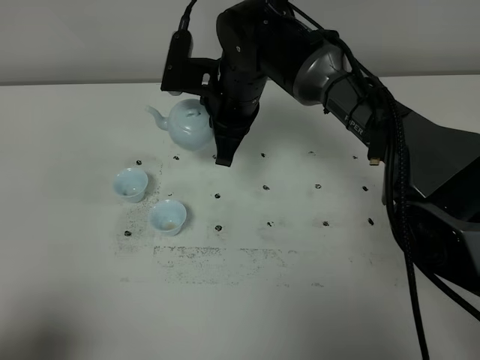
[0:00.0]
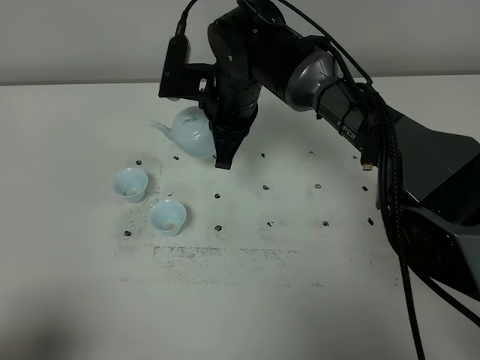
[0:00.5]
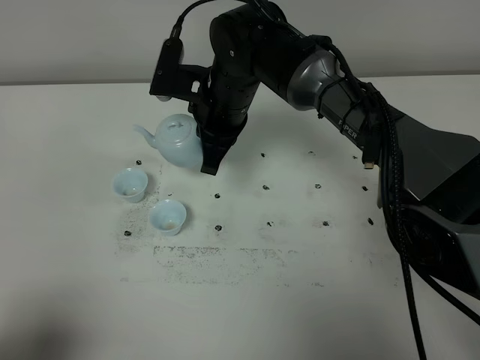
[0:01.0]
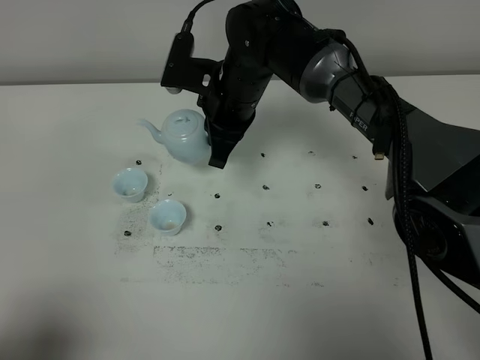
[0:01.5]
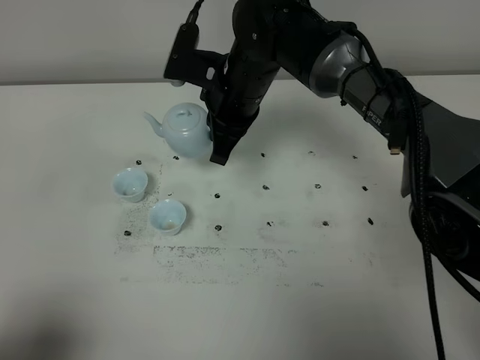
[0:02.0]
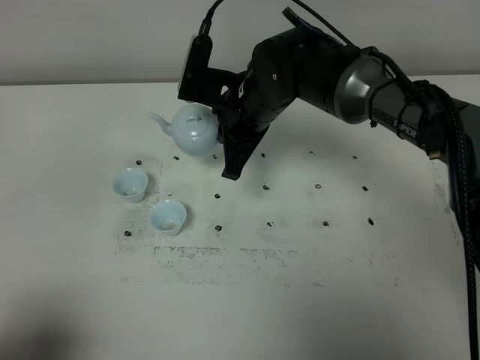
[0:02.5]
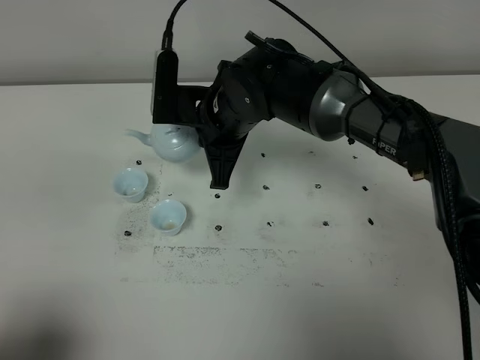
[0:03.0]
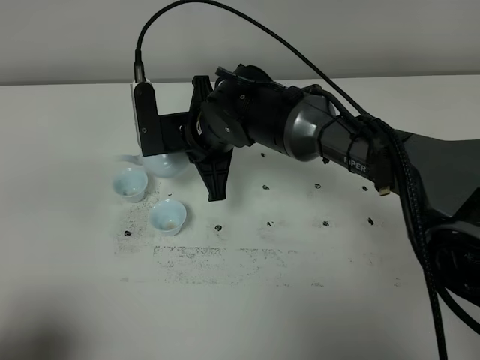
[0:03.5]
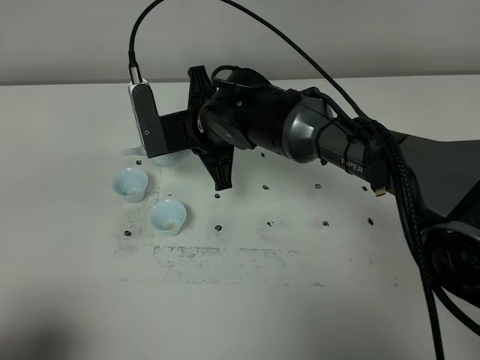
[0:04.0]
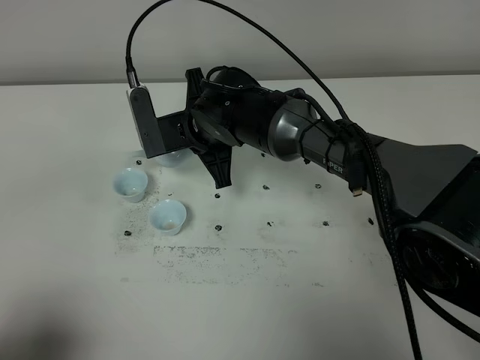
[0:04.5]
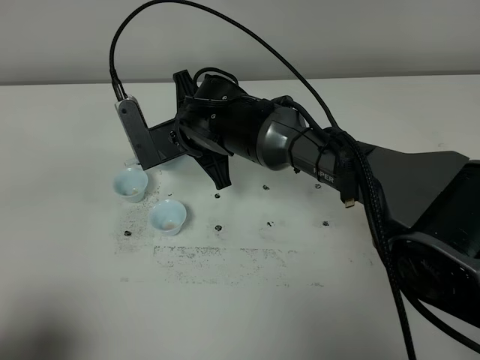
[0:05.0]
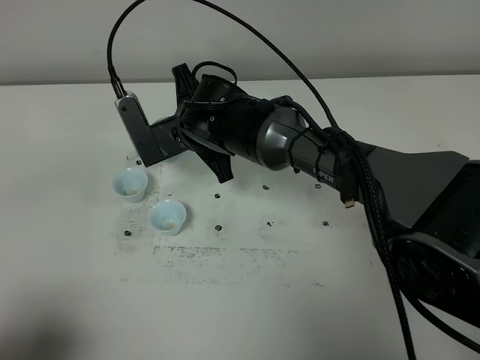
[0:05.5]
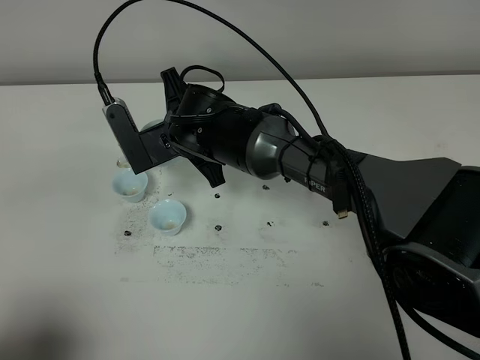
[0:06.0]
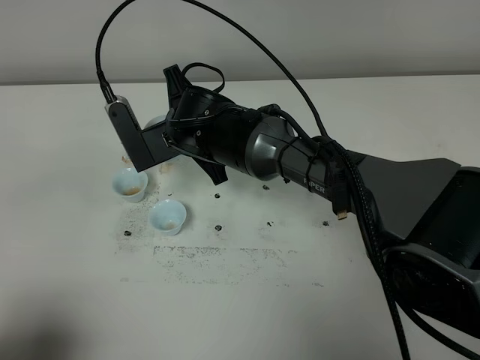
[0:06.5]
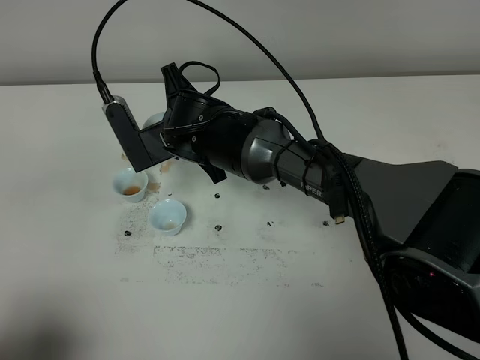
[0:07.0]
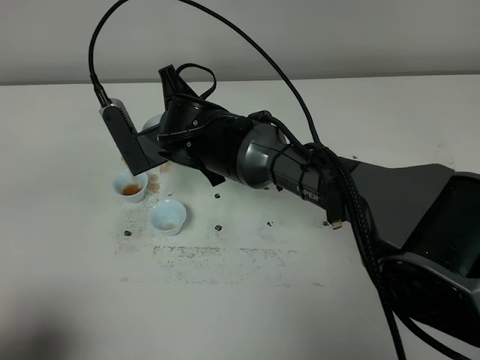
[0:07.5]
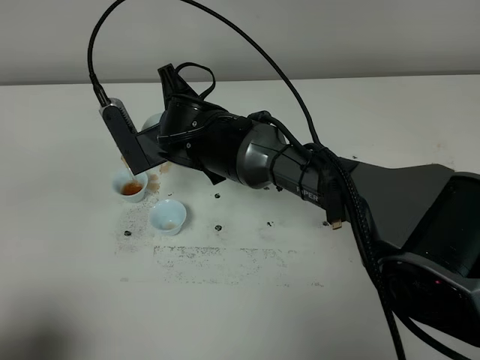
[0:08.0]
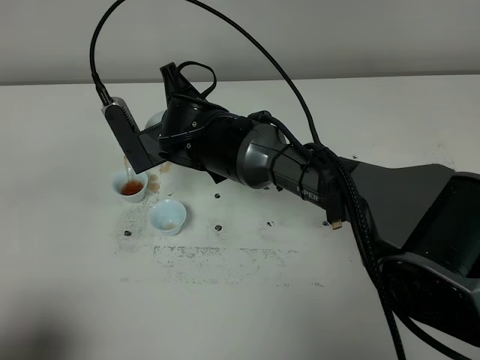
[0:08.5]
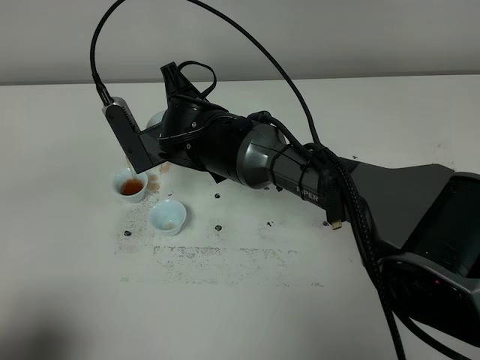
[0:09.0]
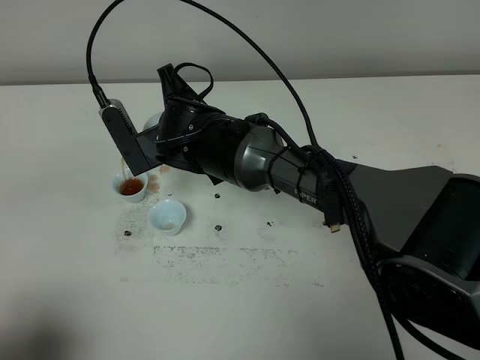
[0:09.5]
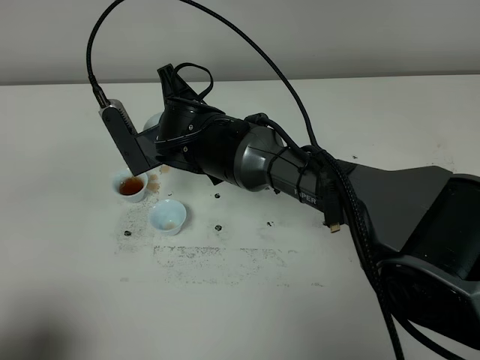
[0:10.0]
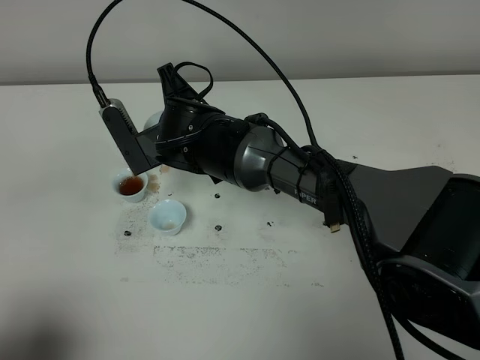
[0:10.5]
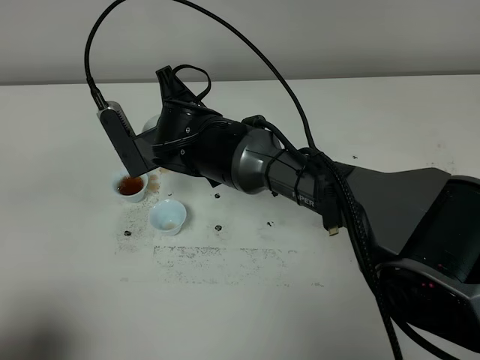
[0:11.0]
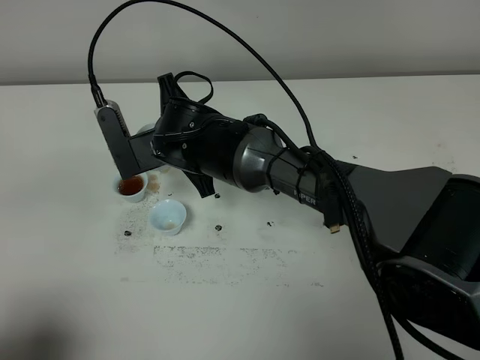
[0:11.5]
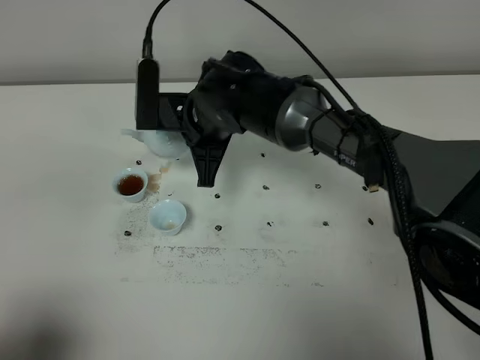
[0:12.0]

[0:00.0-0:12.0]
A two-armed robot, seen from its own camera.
Task of the whole recording: grasp the blue porcelain teapot and pour the tea into the two blue porcelain teacups one by one, put the blue porcelain teapot back in its original place.
Step, 0:00.0 to 0:11.5: Pour tea into the teacup with the right gripper.
0:00.0 to 0:02.0: The grippers move only a little.
0:02.0 to 0:04.0: The right gripper moves roughly 5 cm.
0:06.0 to 0:08.0: The grippers stay close to where they were, moving slightly.
0:08.0 to 0:10.0: Both grippers stay about where they are.

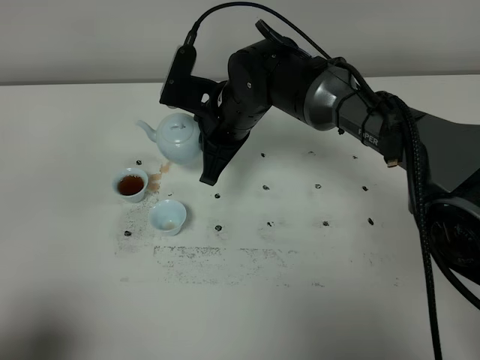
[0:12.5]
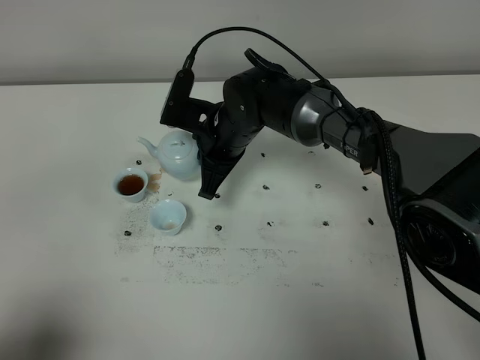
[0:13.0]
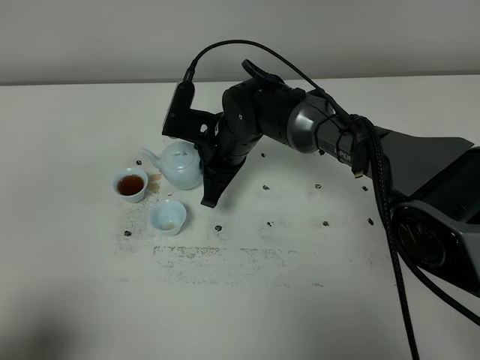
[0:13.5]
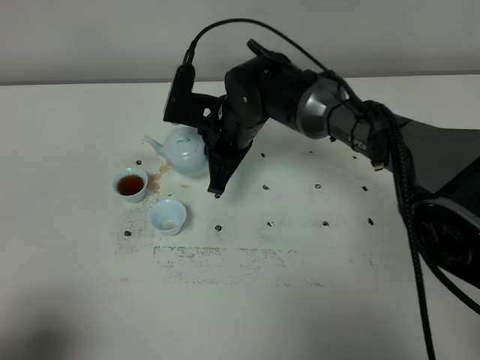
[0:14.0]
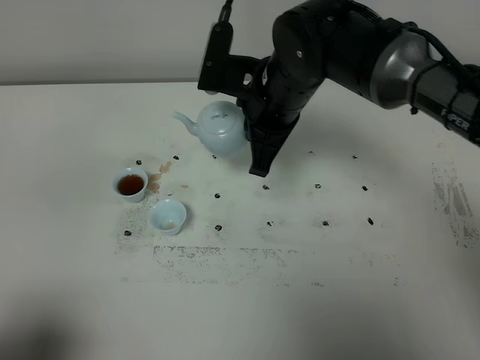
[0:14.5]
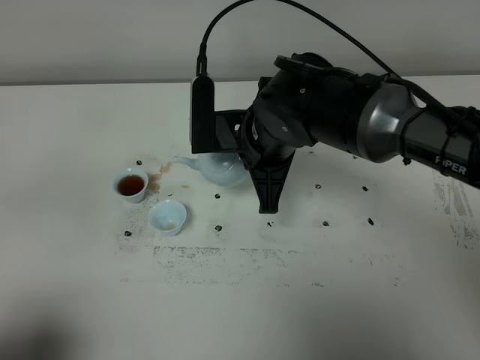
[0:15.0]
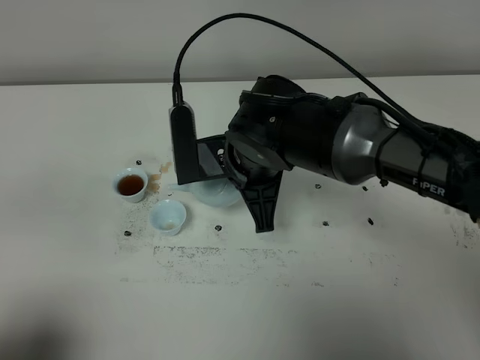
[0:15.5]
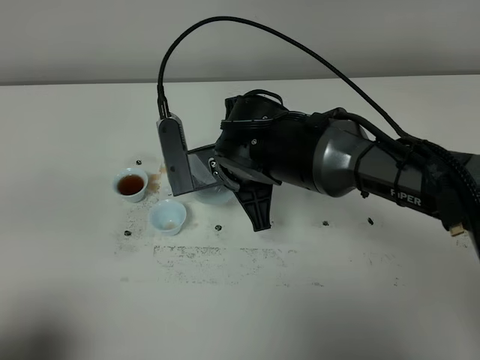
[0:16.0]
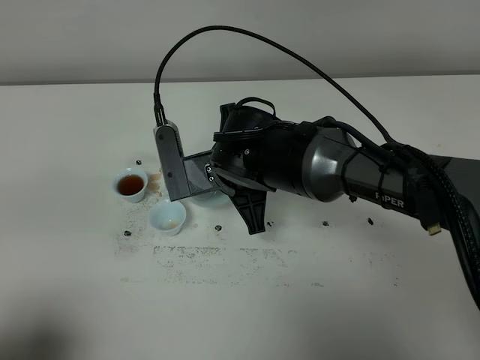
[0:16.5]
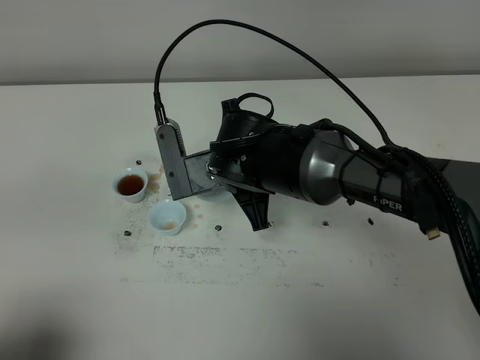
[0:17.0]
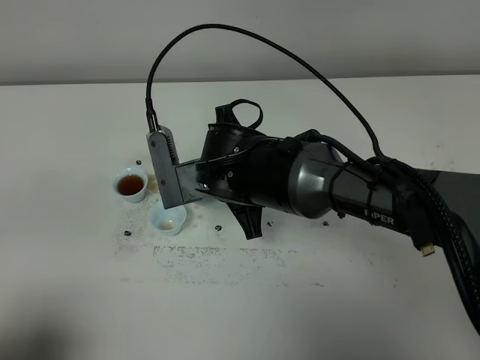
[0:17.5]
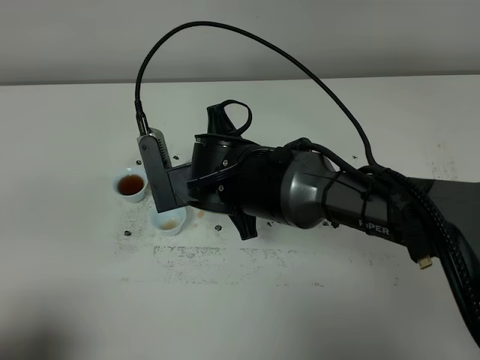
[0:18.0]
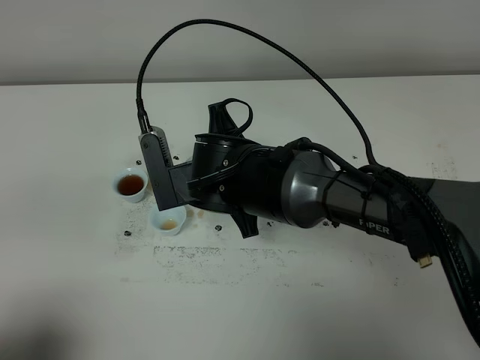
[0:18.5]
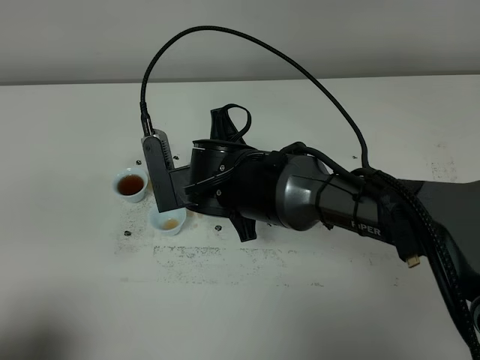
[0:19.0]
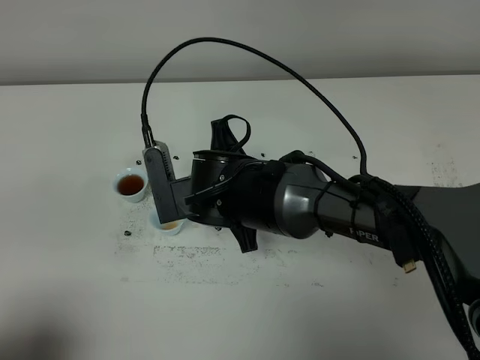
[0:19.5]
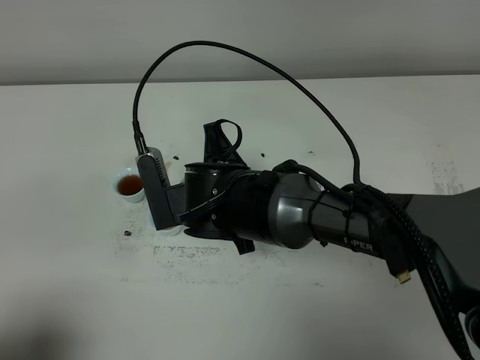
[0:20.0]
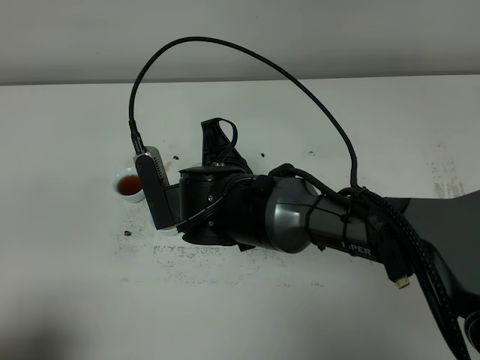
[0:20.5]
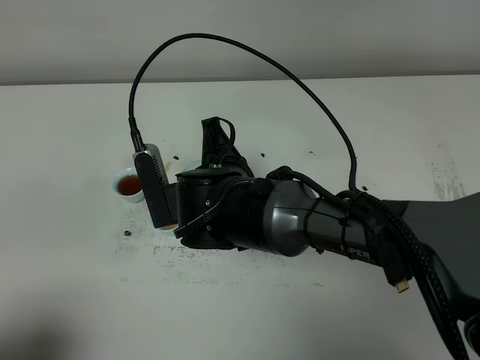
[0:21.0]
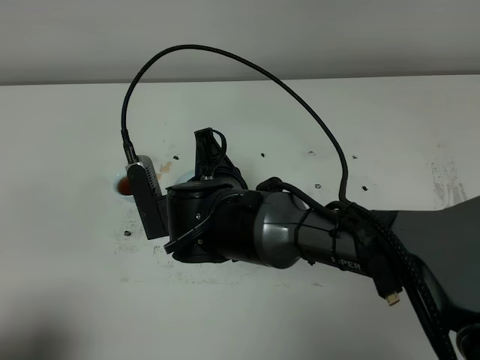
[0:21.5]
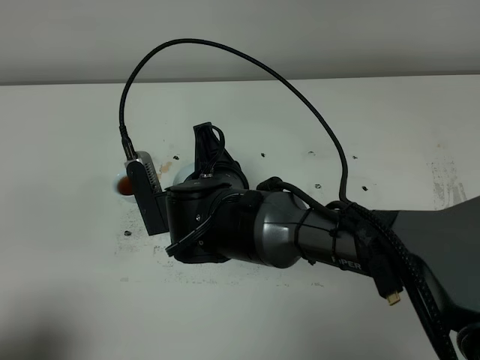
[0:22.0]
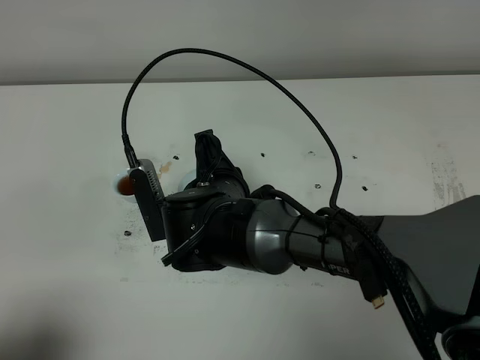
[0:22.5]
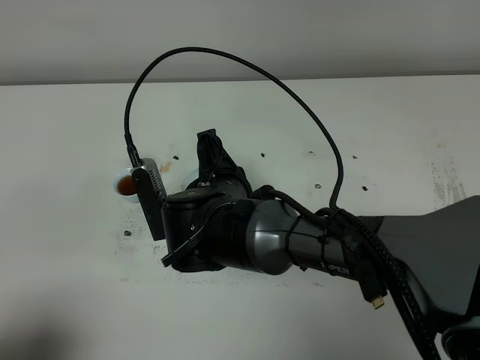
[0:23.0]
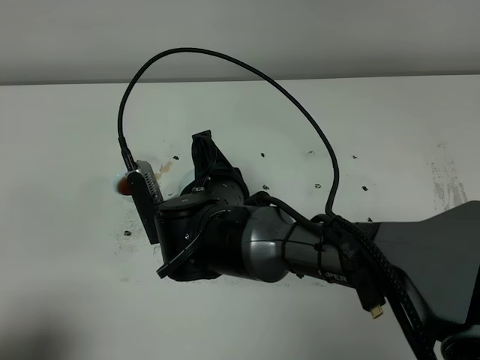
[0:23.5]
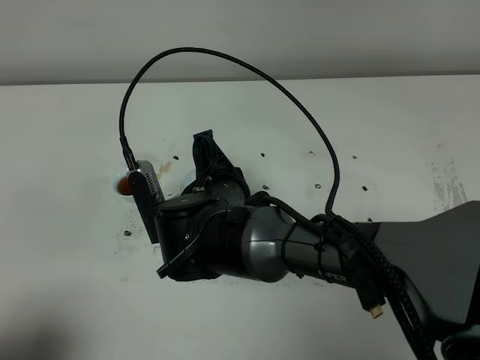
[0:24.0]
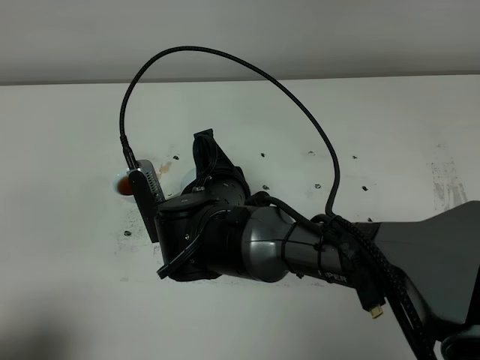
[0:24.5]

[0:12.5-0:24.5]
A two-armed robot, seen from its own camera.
Task of the whole recording: grasp the blue porcelain teapot and pour the tea into the two blue porcelain teacups one by one, put the blue porcelain teapot back in its original place.
0:12.5 to 0:14.5: The right gripper travels upward and to the right by about 10 cm.
0:14.5 to 0:16.5: The right gripper moves downward and to the left, some 10 cm.
0:16.5 to 0:22.5: The grippers stay close to where they were, moving slightly.
0:22.5 to 0:24.5: Both grippers stay put.

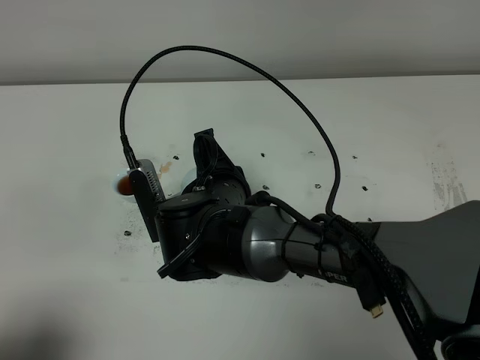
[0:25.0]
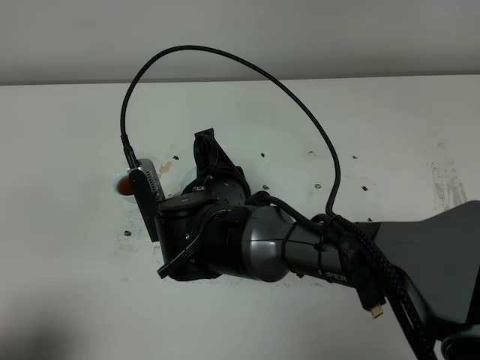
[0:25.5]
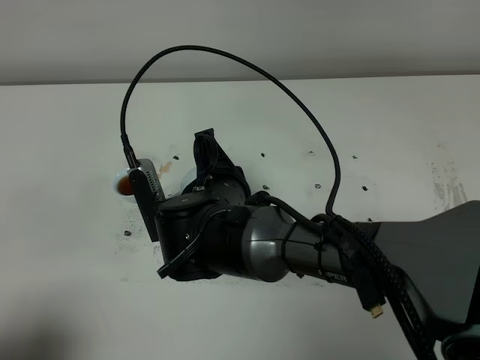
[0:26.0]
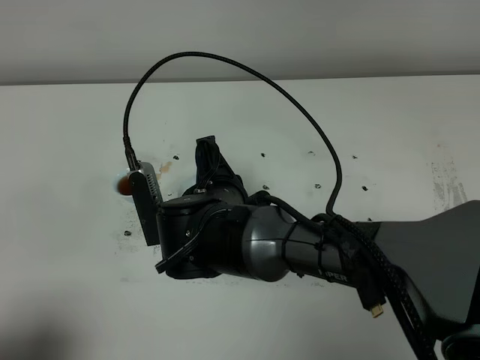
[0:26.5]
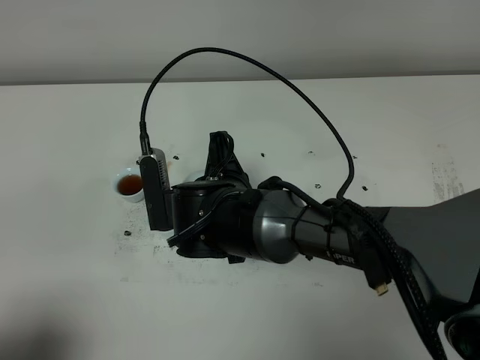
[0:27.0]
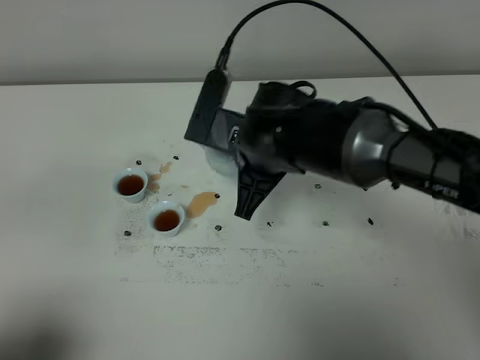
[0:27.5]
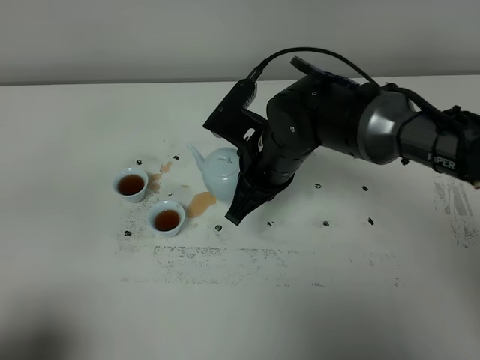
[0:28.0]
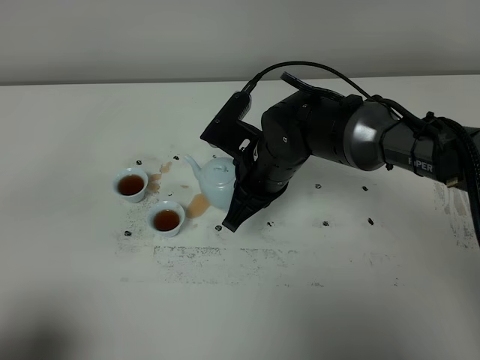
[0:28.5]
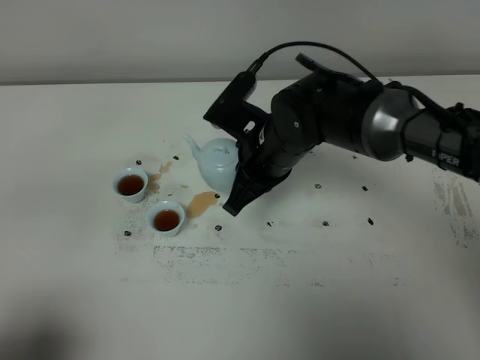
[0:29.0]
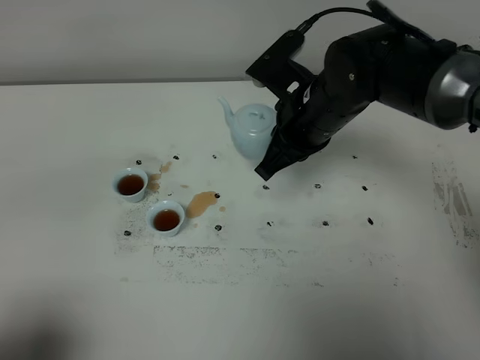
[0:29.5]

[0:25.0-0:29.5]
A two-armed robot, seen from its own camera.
Task of the whole recording: grasp the blue porcelain teapot and pour the tea into the two blue porcelain teacups one by one, put the blue porcelain teapot back in its original place.
Step, 0:25.0 to 0:27.0: Pour tea into the teacup with the right gripper.
0:25.0 to 0:27.0: The grippers make only small movements.
0:27.0 to 0:29.5: The right gripper shifts about 15 cm to the right, upward and forward.